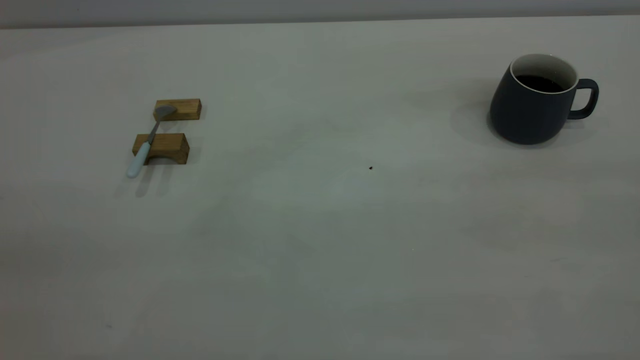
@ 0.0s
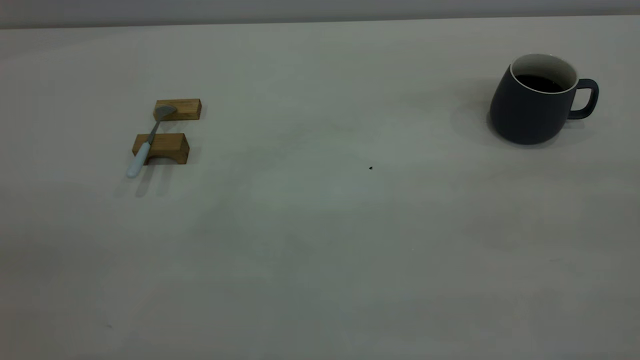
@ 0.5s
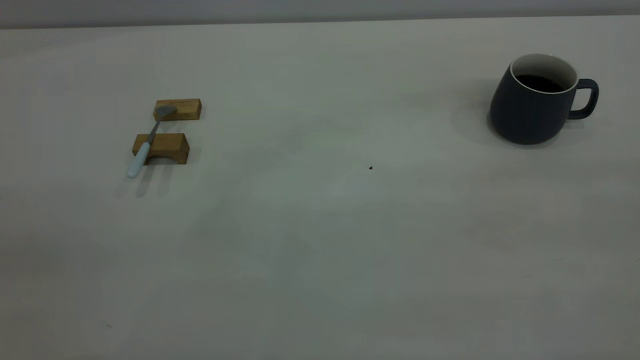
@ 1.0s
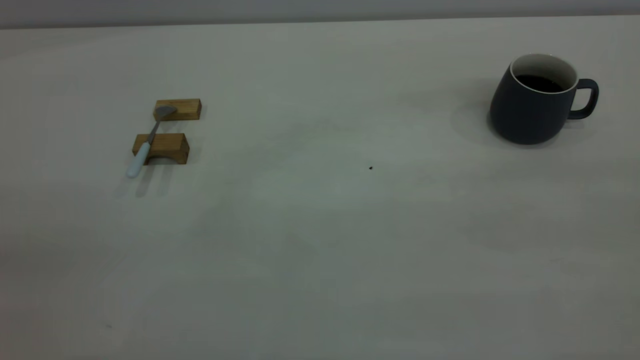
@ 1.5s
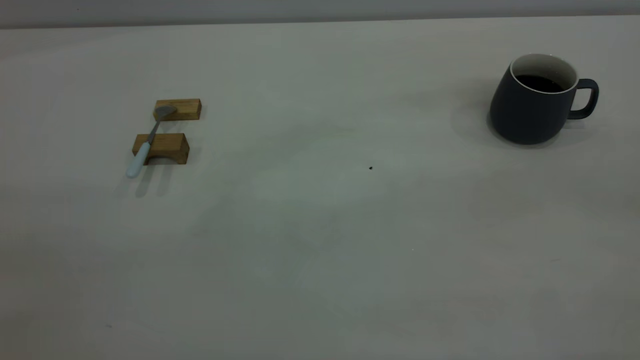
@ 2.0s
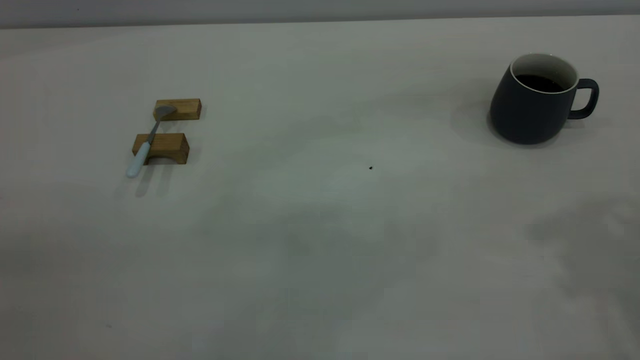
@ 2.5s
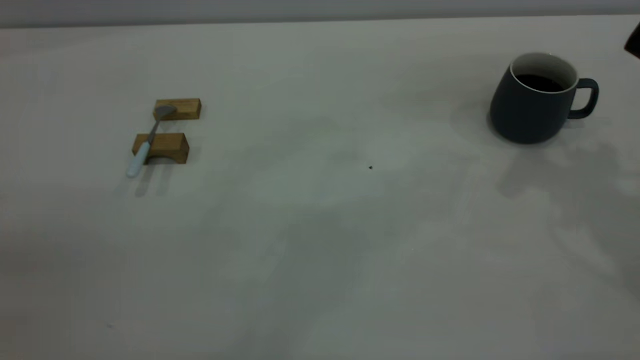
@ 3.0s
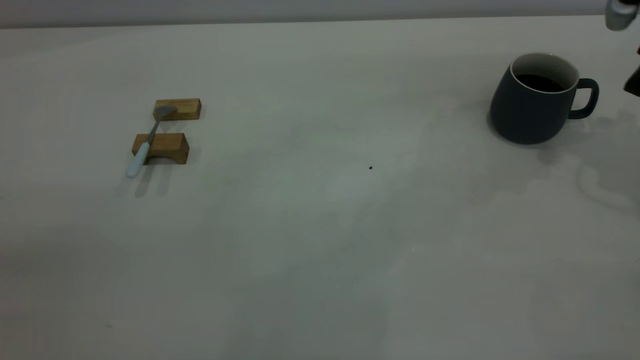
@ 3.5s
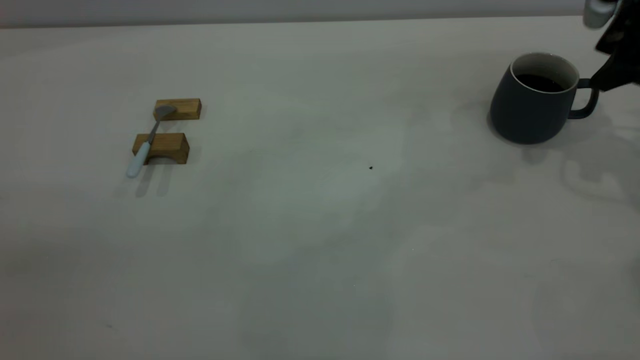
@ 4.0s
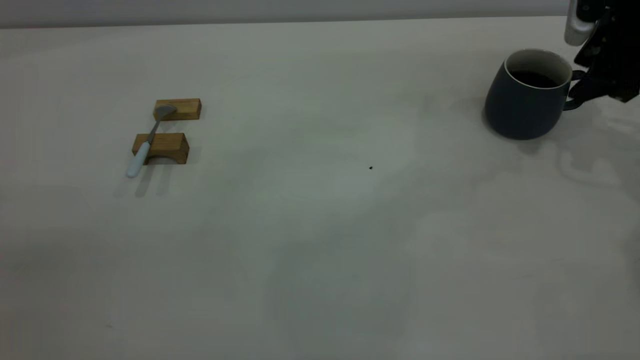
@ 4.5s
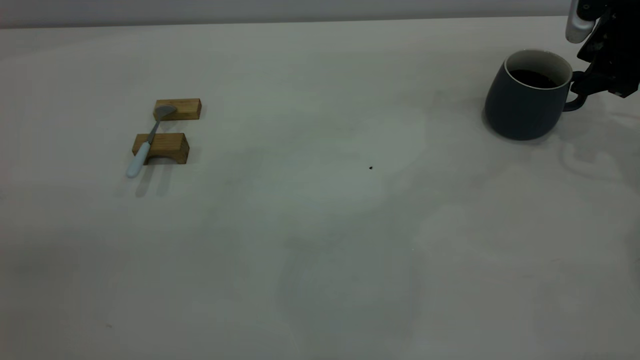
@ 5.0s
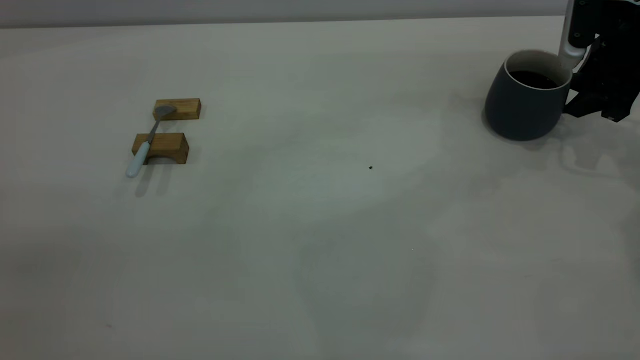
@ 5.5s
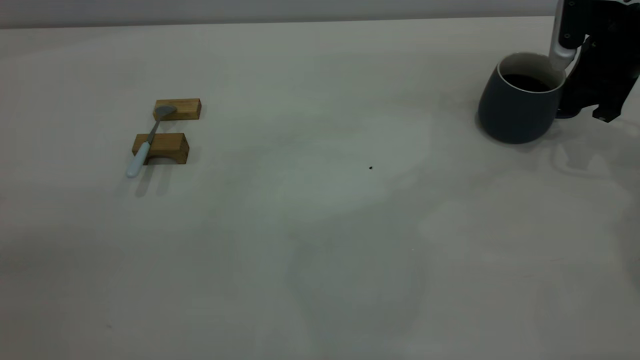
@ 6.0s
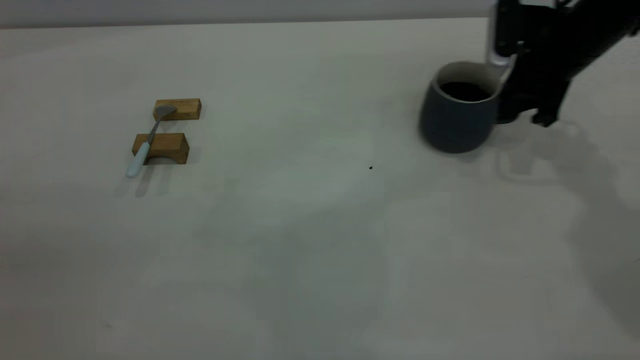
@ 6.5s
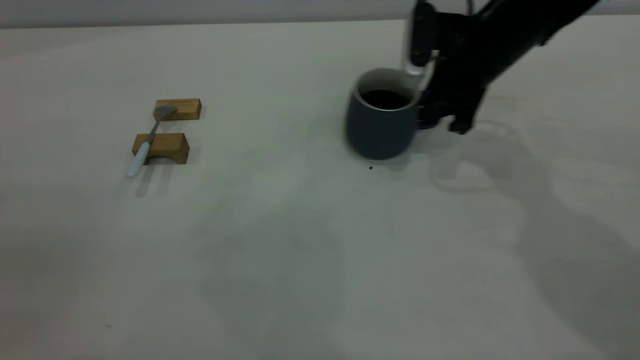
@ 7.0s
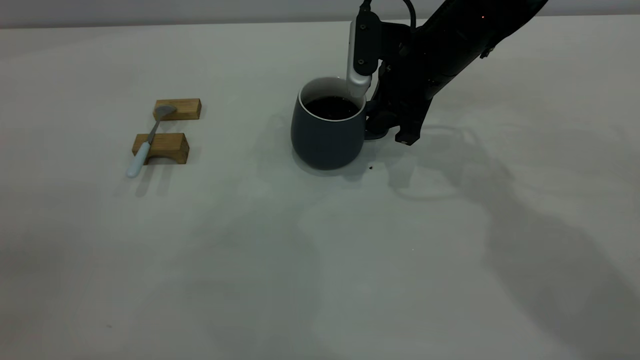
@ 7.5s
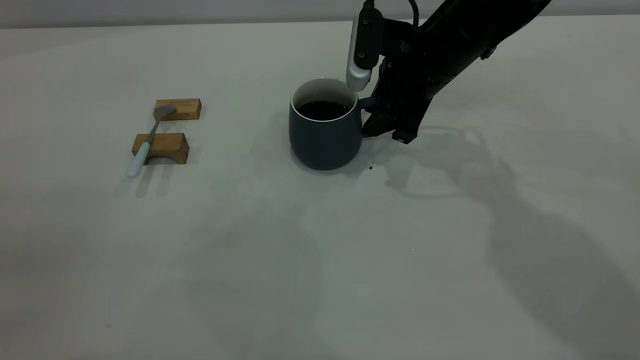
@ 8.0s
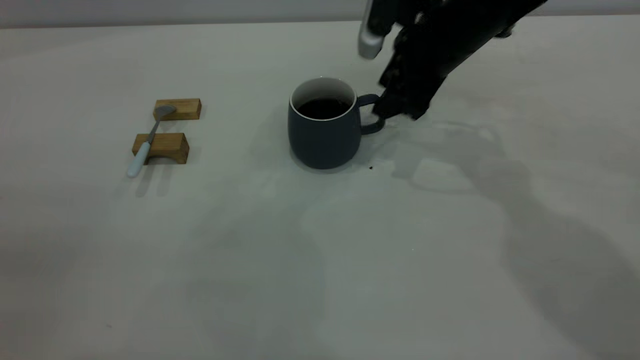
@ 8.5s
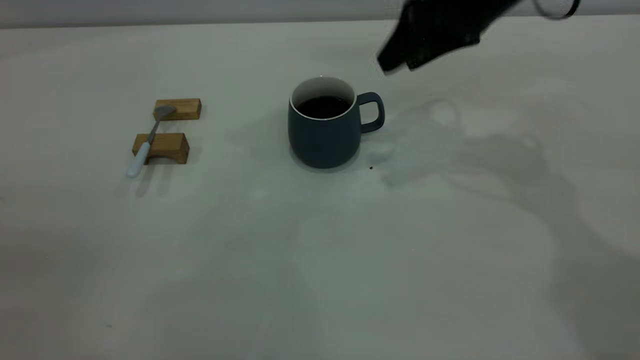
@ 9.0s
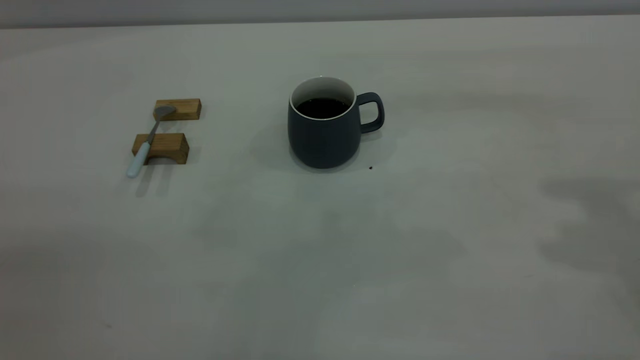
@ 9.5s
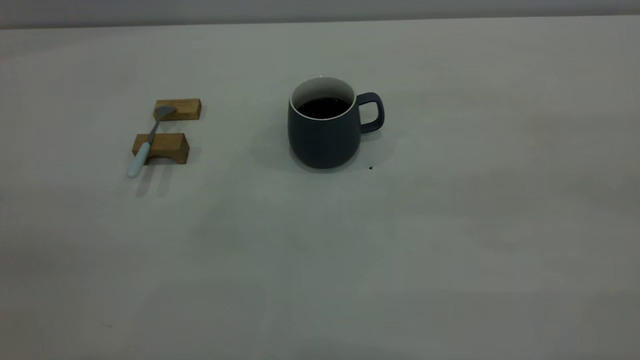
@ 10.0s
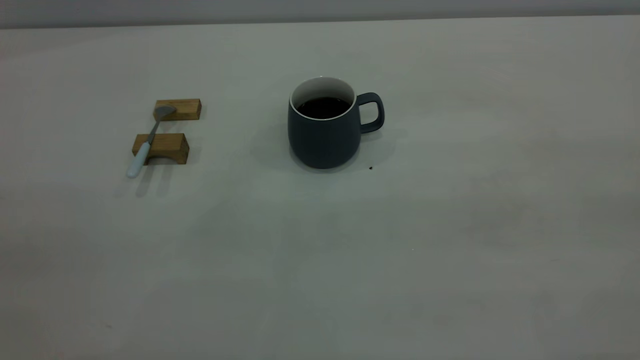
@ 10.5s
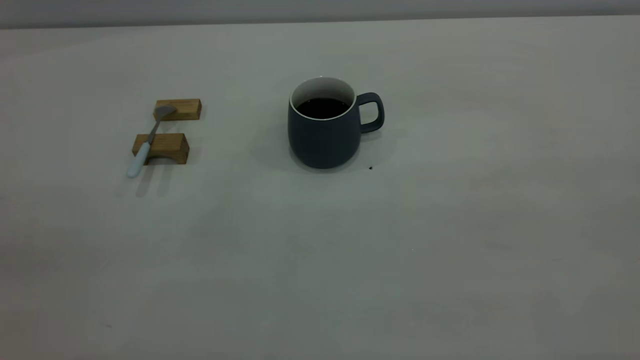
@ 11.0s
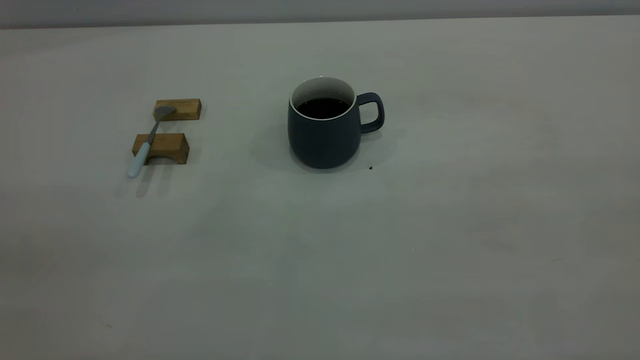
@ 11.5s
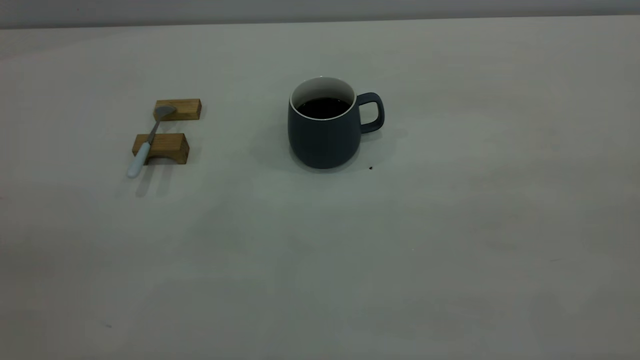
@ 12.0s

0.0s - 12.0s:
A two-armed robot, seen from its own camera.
Step, 0.0s - 8.5s: Move the cup with coffee to the center of view.
2.0s - 4.0s: The right gripper moves forward and downward, approximately 40 cm.
4.0s - 6.0s: The right gripper is displaced downward by approximately 5 cm, and closes its fingers.
6.0s - 8.0s: The right gripper travels to the left by approximately 20 cm, and opens up.
8.0s - 10.0s: The right gripper goes roughly 50 cm backward, upward and to the right.

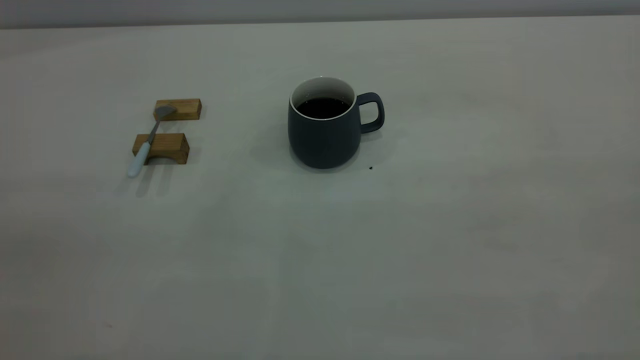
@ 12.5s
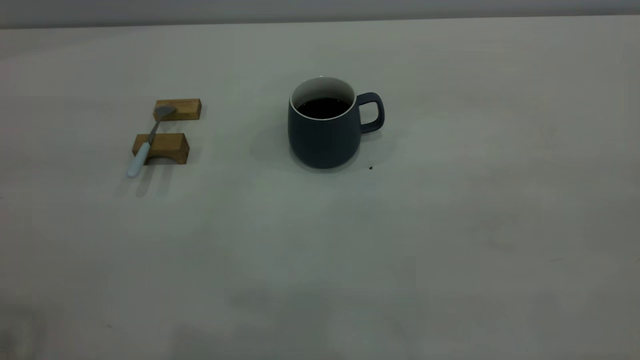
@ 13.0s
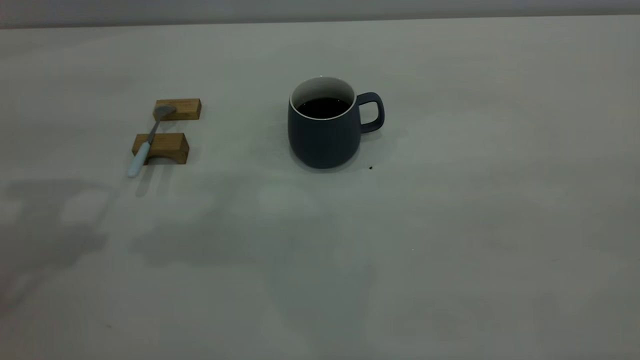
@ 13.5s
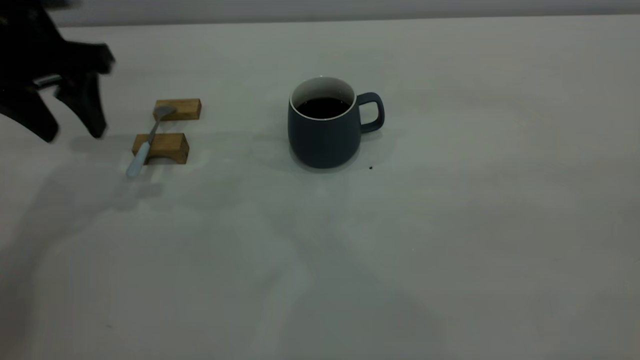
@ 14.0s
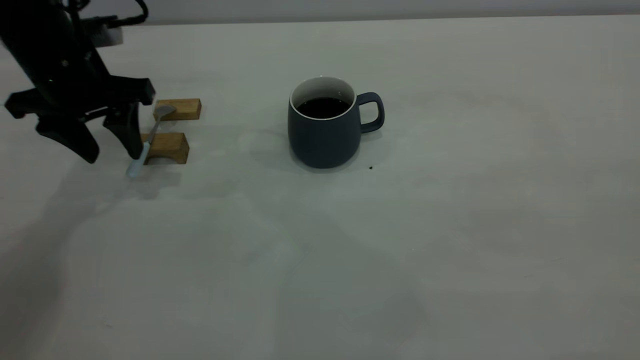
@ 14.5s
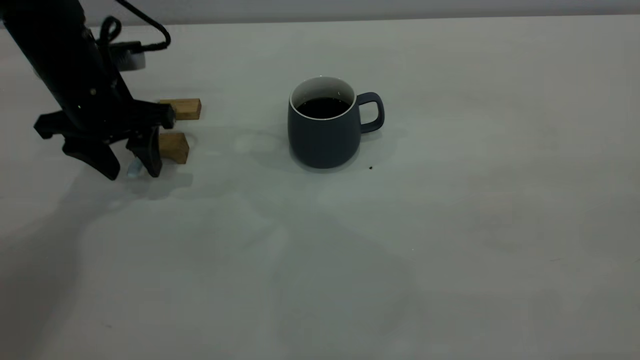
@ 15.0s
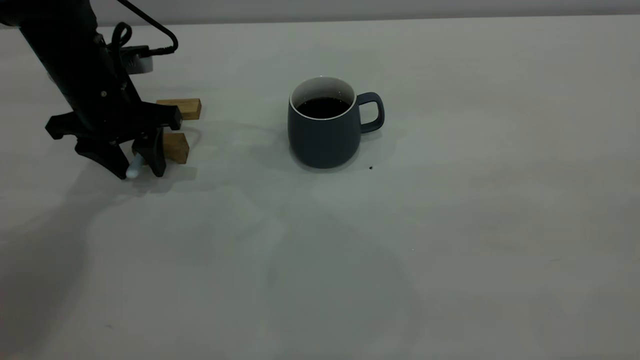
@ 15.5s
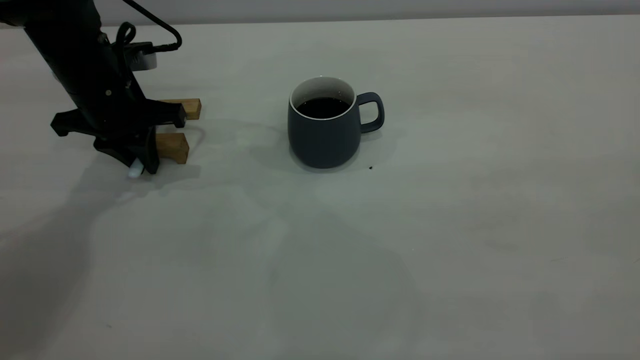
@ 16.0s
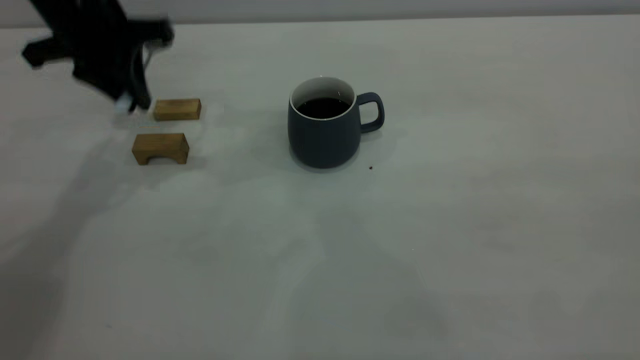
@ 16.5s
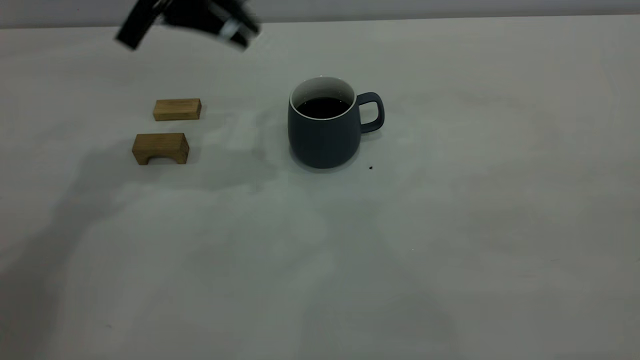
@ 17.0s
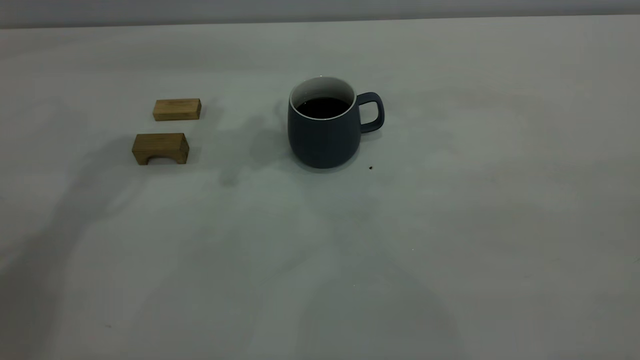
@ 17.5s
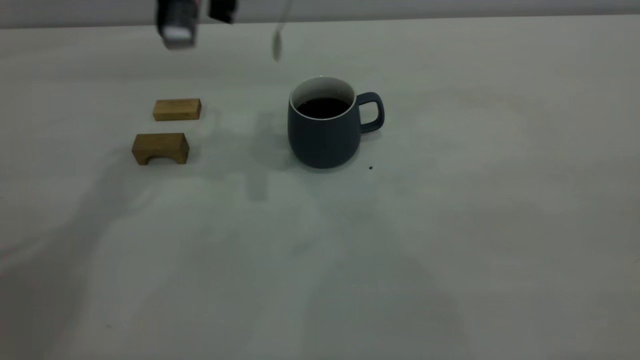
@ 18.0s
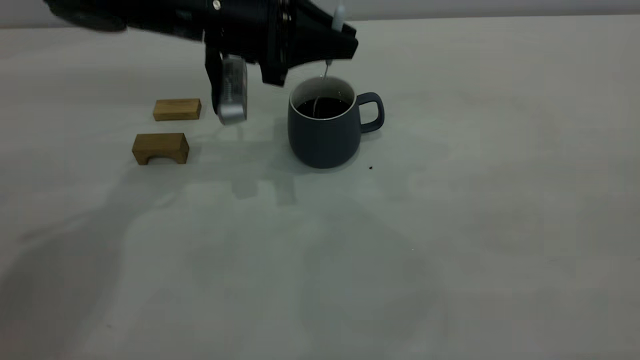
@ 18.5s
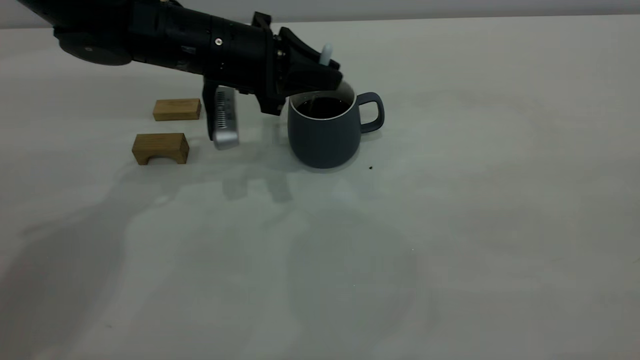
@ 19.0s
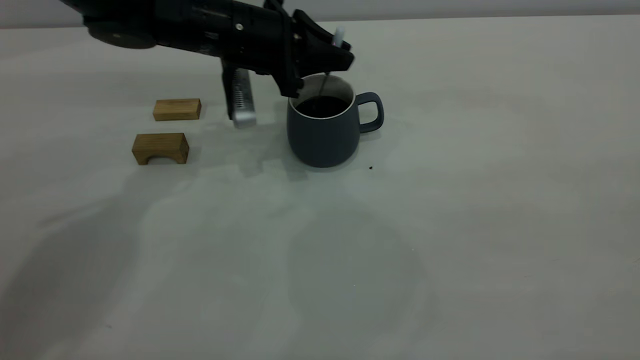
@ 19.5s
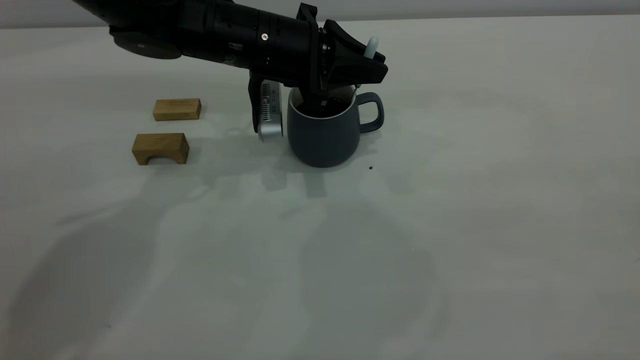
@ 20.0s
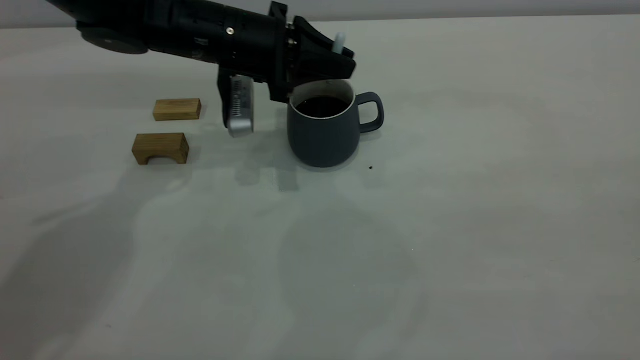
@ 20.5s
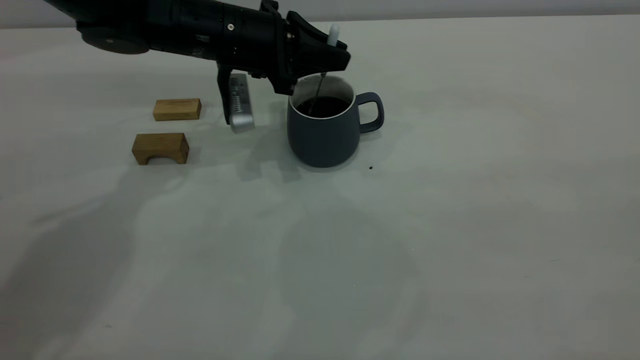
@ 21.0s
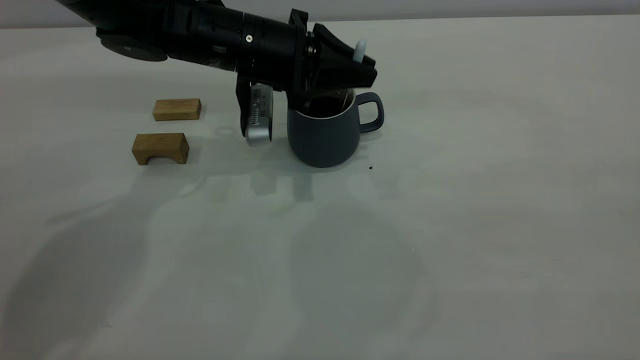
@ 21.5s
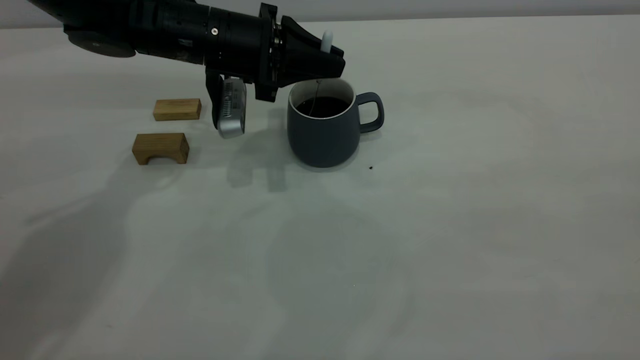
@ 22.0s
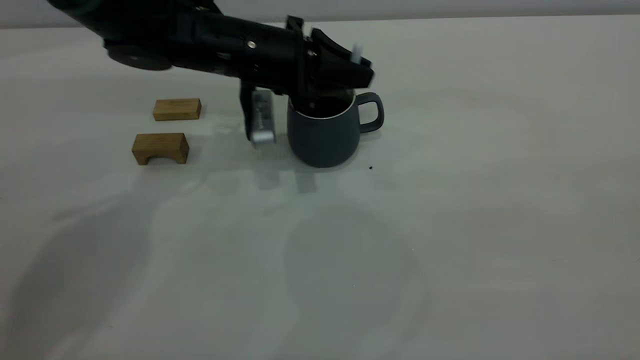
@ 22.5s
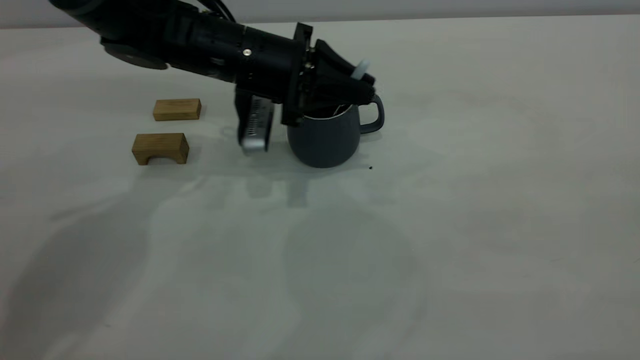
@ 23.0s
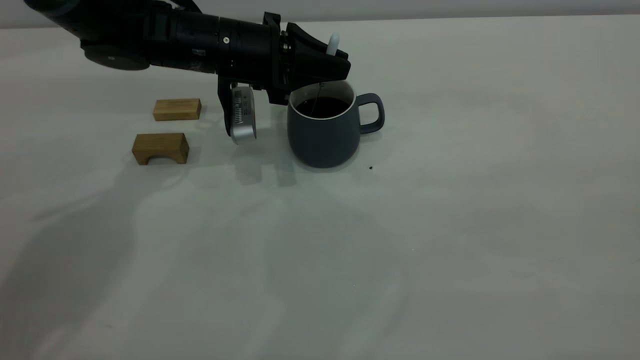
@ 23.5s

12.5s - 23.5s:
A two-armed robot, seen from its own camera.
Step, 12.5s - 16.0s: Pick up the spoon.
12.5s - 14.5s: The left gripper shifts some 40 cm forward and downward.
14.5s - 16.0s: The left gripper closes its fingers.
16.0s - 18.0s: The left gripper moves upward and to the right, about 15 cm.
18.0s - 20.0s: The left gripper travels downward by some 10 cm.
20.0s - 23.5s: The grippers stay close to where they were, moving slightly.
